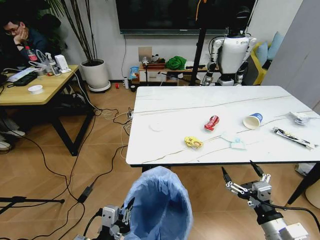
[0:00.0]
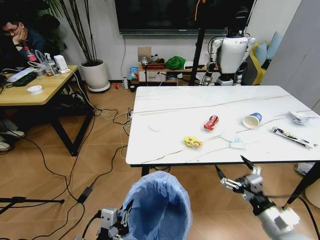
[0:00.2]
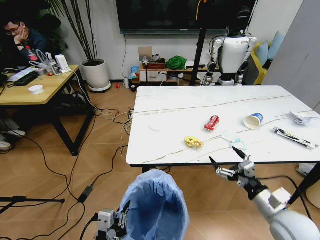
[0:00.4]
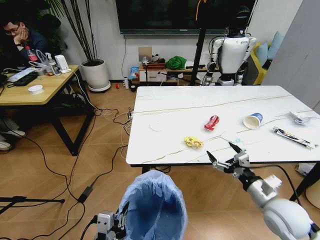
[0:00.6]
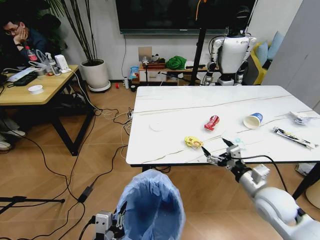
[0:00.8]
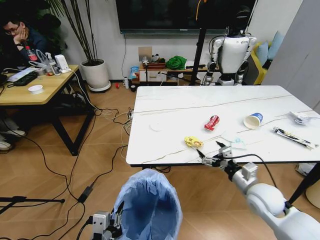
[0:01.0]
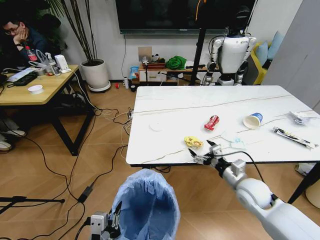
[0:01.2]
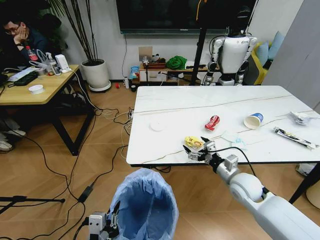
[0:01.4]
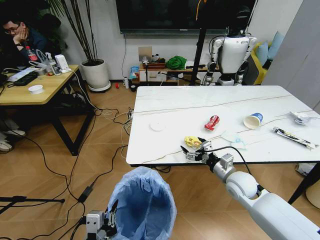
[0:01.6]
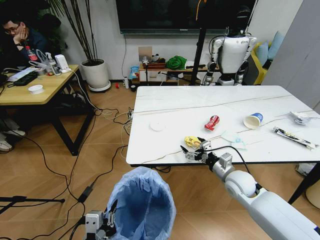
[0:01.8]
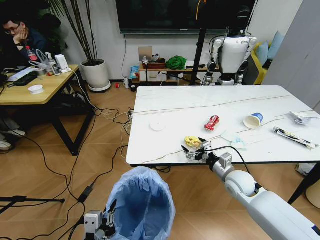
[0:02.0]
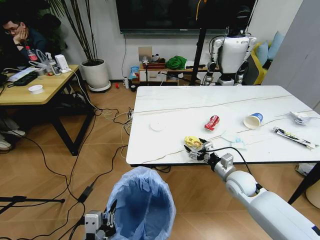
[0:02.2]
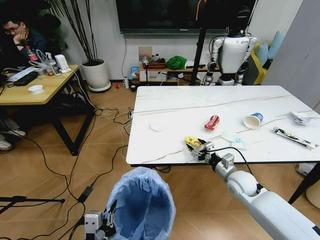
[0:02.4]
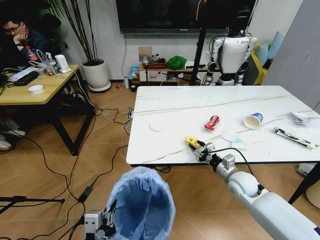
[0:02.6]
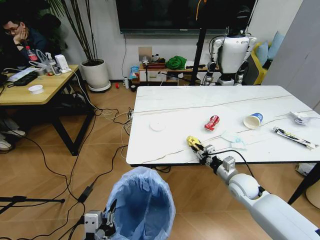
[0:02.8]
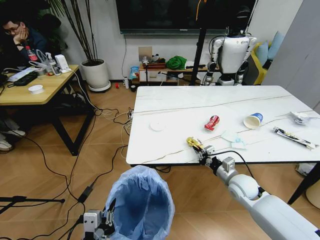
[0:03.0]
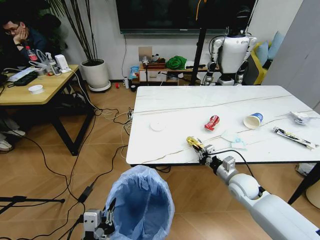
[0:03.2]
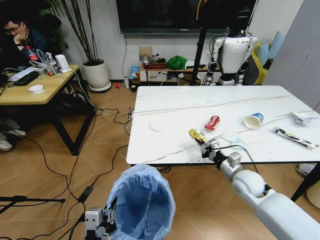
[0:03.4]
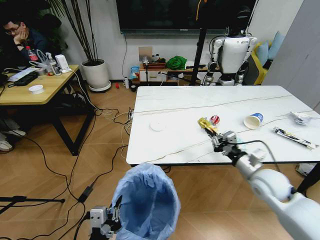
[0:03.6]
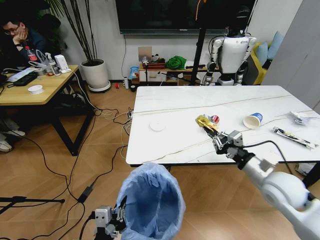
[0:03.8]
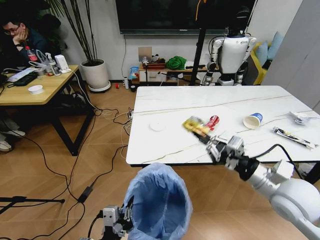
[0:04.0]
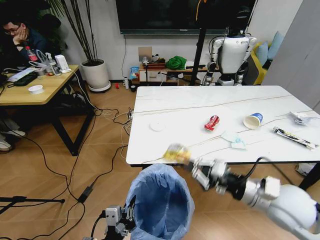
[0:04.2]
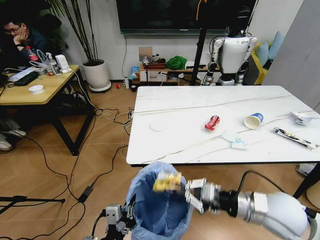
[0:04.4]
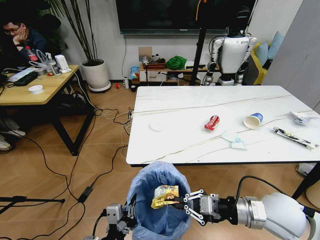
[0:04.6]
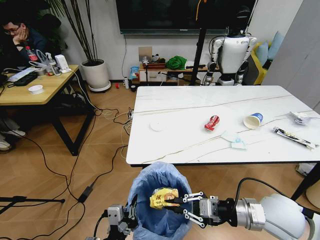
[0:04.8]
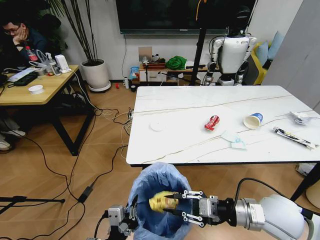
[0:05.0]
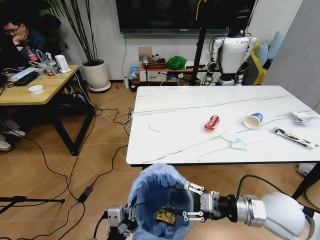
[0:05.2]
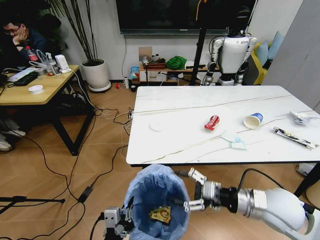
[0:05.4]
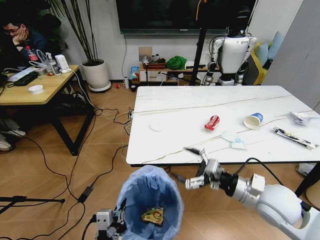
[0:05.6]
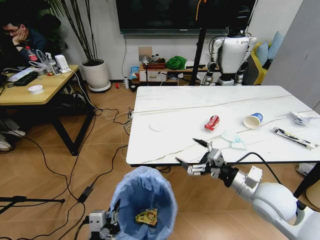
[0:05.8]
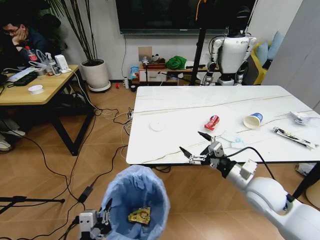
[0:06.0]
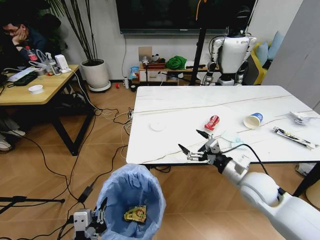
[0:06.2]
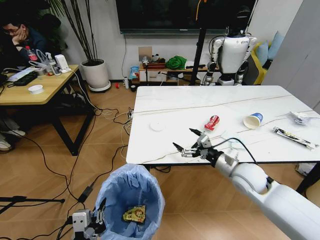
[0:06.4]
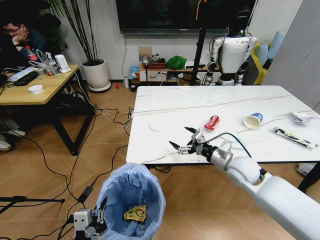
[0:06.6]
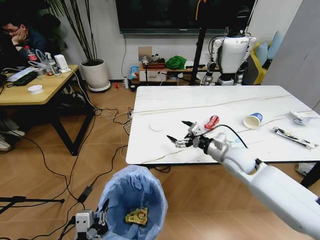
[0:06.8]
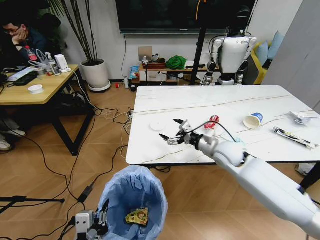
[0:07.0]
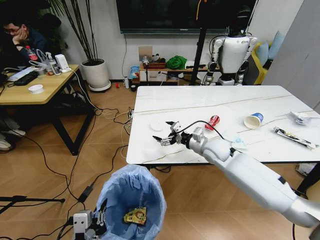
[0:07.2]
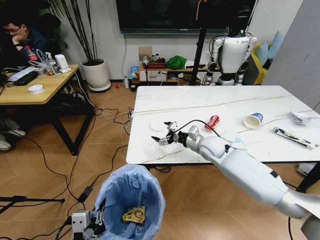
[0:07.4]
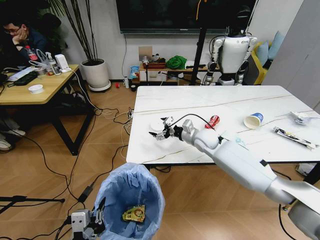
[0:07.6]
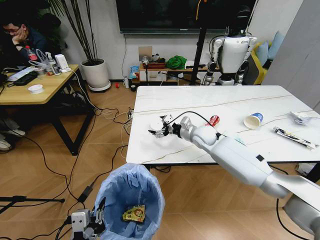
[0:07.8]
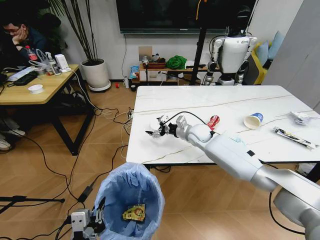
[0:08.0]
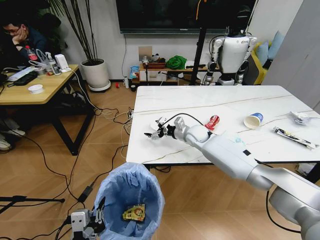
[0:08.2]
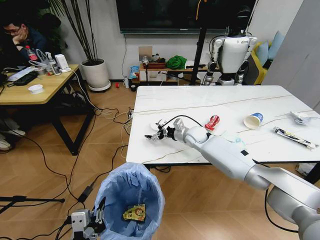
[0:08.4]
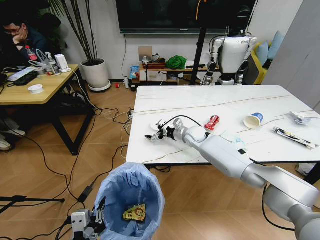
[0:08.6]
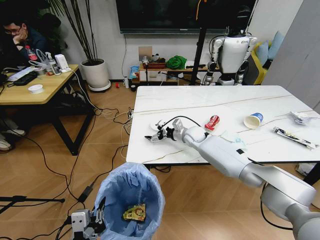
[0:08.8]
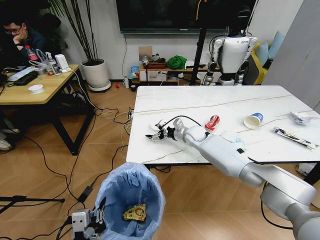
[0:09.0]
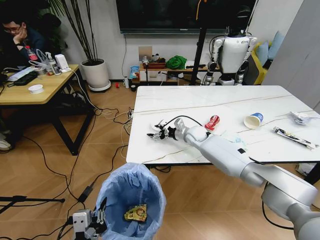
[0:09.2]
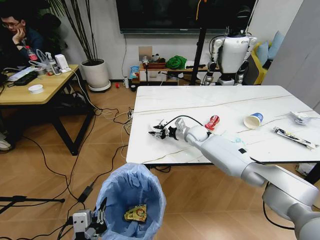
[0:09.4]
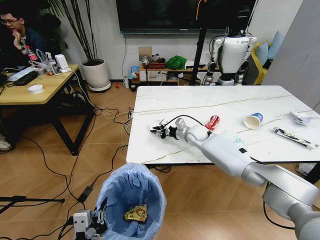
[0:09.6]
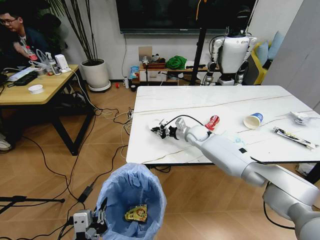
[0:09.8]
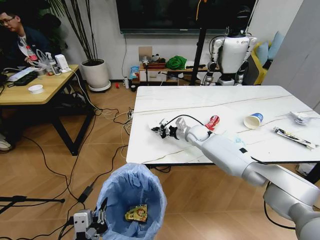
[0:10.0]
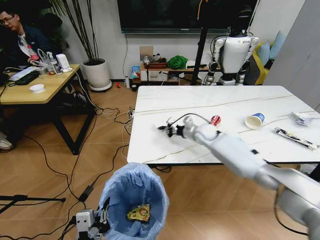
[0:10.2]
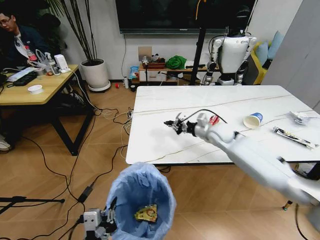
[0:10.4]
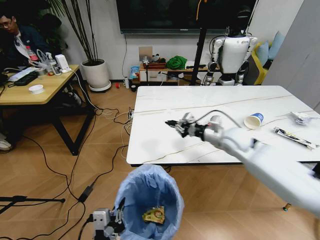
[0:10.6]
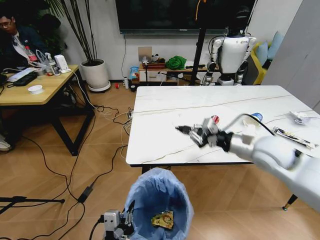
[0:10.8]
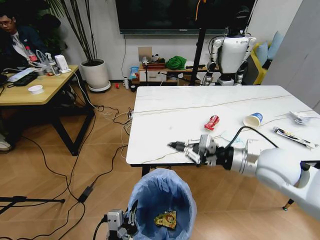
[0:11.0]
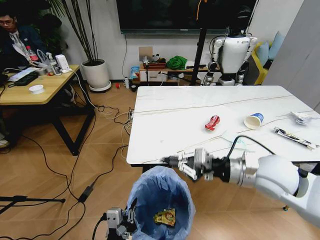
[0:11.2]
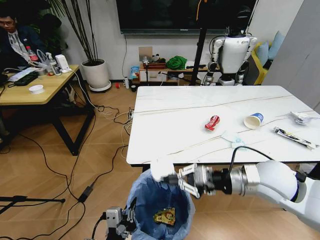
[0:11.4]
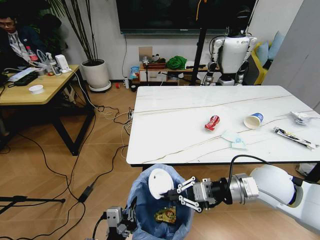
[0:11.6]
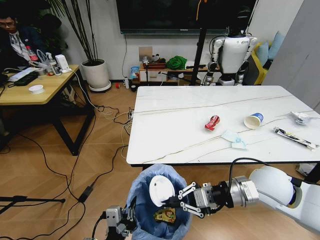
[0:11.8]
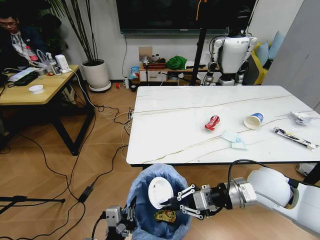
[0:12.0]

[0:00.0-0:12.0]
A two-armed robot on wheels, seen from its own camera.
Task of the whole recording: Pick up the trash bin and place the trash from the table into it.
0:00.0 to 0:01.6: The right gripper moves forward, about 20 cm.
0:01.6 to 0:03.0: The right gripper closes its fingers.
0:03.0 to 0:04.4: The right gripper travels upward and backward by approximately 20 cm; the left gripper changes place by some 5 cm.
0:04.4 to 0:06.0: The left gripper heads to the left, covering approximately 5 cm; the right gripper moves forward, some 5 cm, and opens up.
0:06.0 to 0:07.6: The right gripper goes roughly 25 cm forward and to the left.
0:07.6 to 0:09.0: The right gripper goes approximately 5 cm forward.
0:09.0 to 0:10.4: The right gripper is displaced to the right and upward by approximately 10 cm, and closes its fingers.
0:10.4 to 0:12.0: The right gripper goes roughly 25 cm backward.

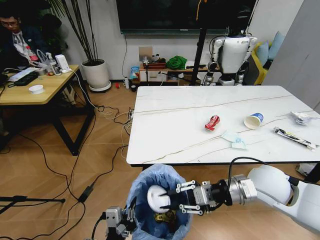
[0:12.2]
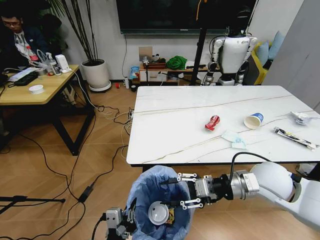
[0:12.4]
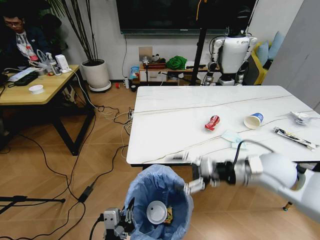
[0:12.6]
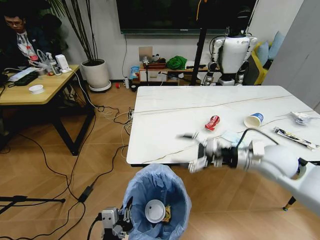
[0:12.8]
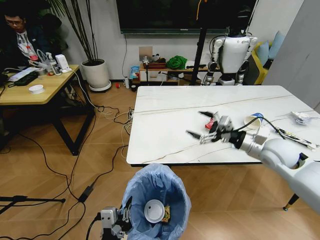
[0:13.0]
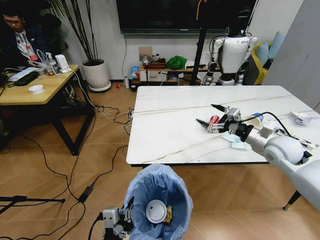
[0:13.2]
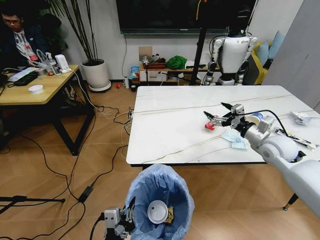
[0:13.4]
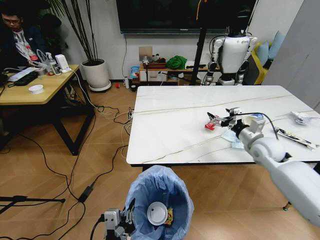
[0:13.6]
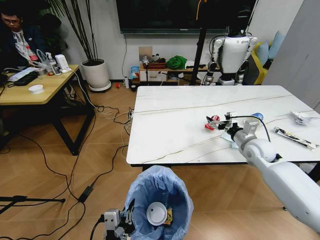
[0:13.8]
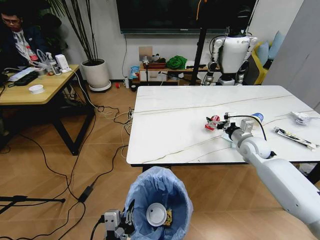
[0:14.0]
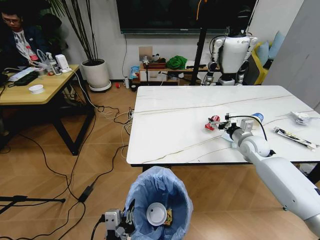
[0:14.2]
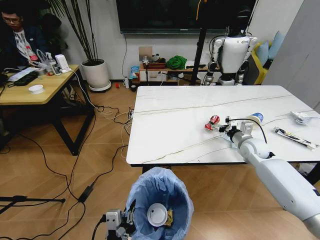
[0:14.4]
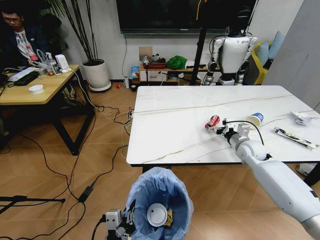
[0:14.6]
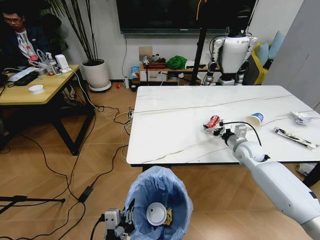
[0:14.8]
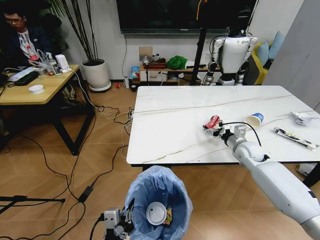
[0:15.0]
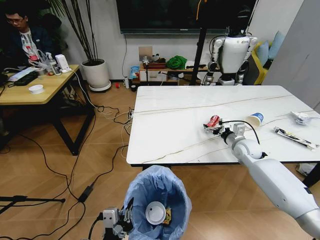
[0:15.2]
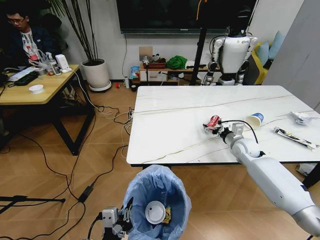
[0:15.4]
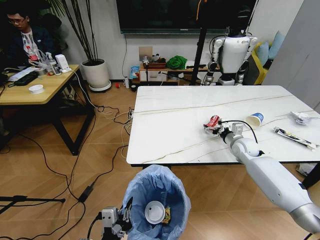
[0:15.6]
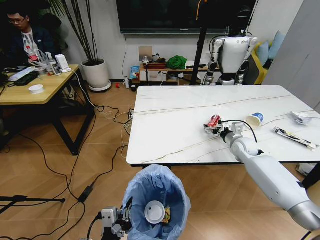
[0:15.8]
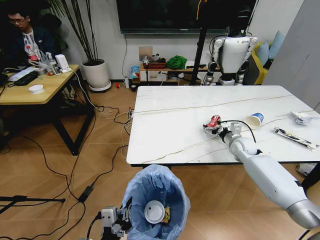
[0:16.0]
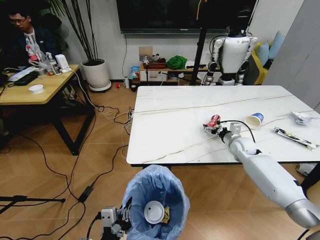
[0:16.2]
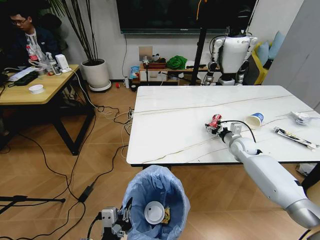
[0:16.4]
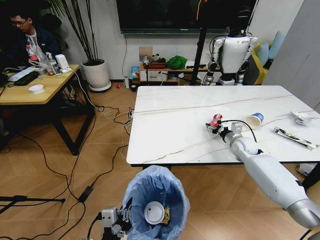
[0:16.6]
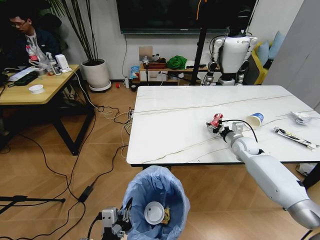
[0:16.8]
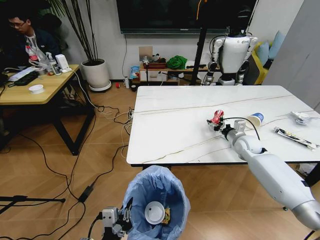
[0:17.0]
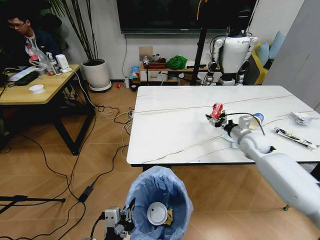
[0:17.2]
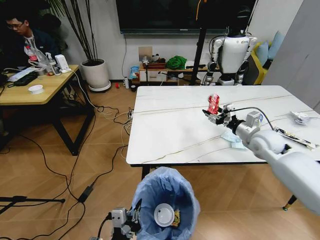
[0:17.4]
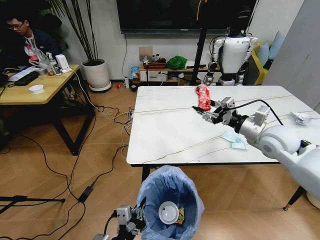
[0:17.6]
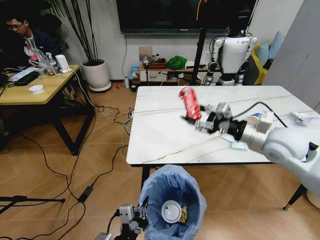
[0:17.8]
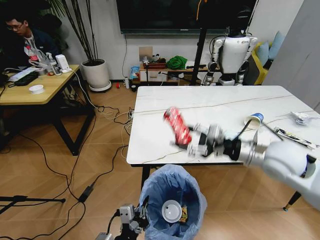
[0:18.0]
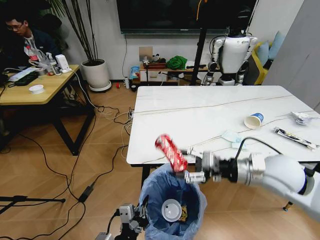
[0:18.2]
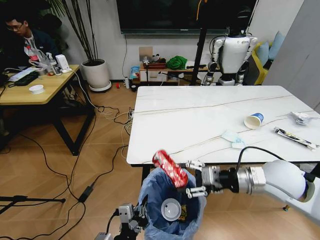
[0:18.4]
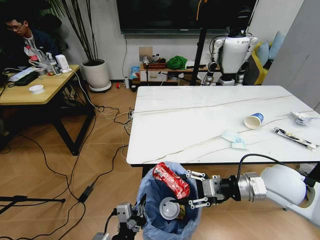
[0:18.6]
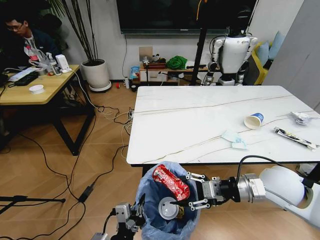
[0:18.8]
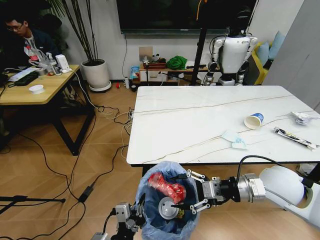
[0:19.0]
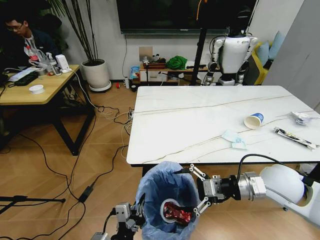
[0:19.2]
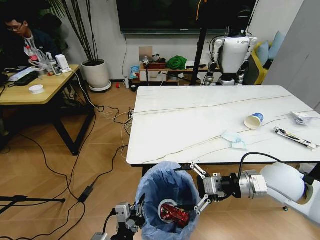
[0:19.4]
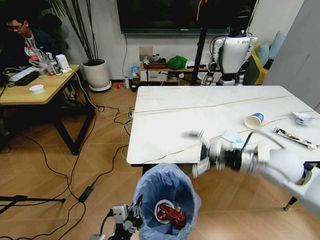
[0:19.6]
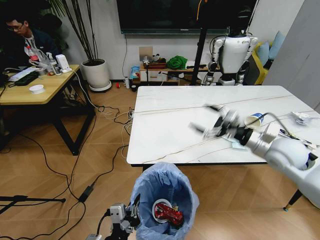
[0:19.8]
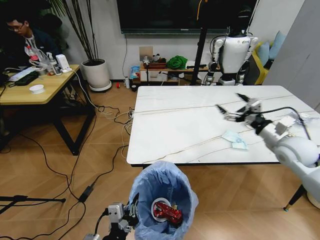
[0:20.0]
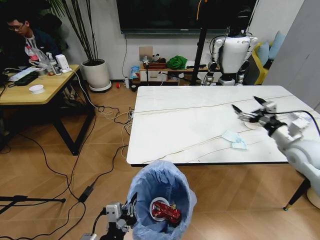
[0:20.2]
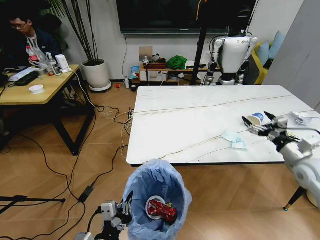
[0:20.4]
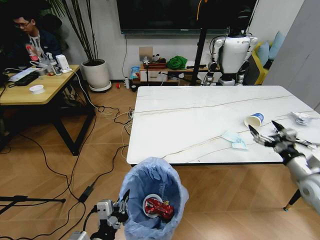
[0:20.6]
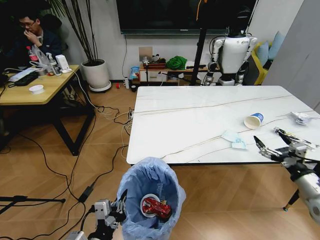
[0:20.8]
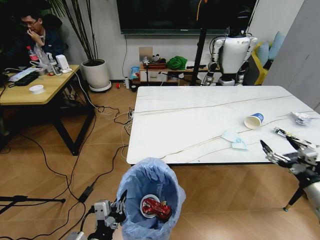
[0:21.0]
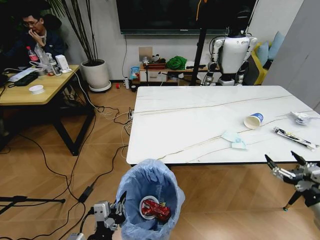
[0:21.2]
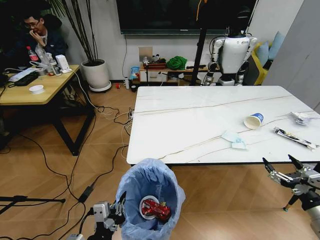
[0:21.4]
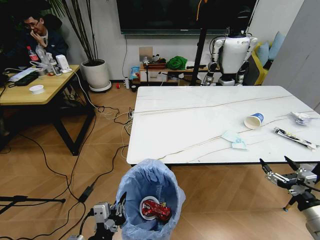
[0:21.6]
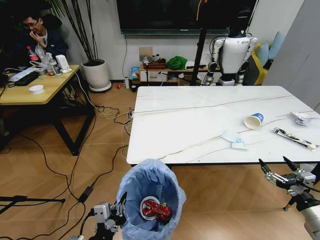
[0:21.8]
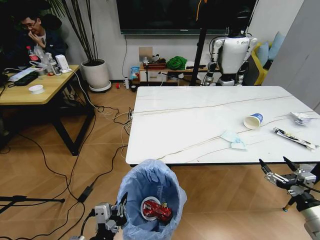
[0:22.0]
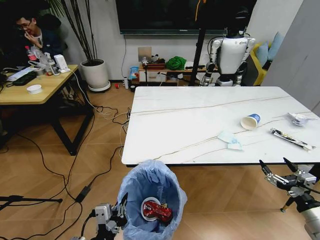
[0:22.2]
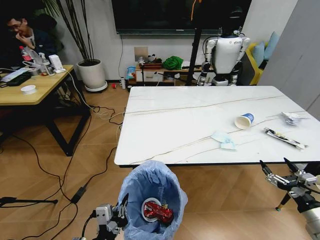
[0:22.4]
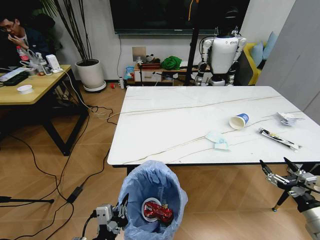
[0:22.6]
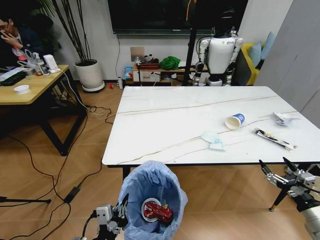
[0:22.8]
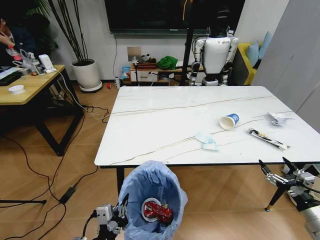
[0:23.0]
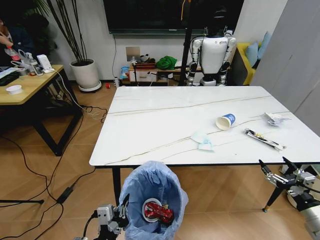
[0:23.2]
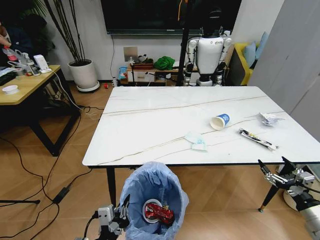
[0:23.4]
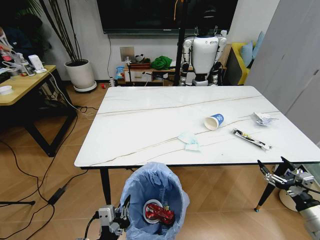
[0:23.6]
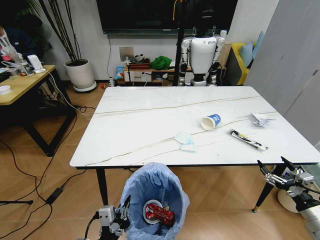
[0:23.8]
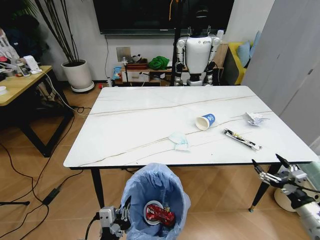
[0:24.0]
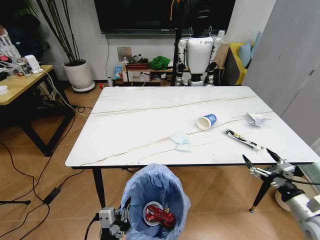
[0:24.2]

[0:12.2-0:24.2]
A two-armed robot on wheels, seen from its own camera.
Task of the whole recording: Pick up the trash bin and place the trash from the table into it.
0:12.2 to 0:13.8: The right gripper goes some 15 cm forward and to the right, and opens.
0:13.8 to 0:15.2: The right gripper moves some 5 cm.
0:15.2 to 0:16.6: The right gripper closes up.
0:16.6 to 0:18.2: The right gripper goes approximately 25 cm backward and upward.
0:18.2 to 0:19.8: The right gripper travels to the right and forward by some 10 cm, and opens.
0:19.8 to 0:21.2: The right gripper shifts some 25 cm backward, to the right and downward.
0:22.6 to 0:24.2: The right gripper changes place by roughly 5 cm.
